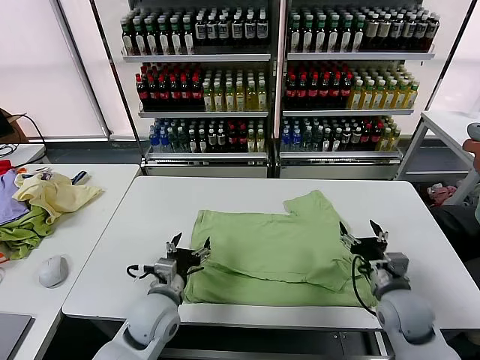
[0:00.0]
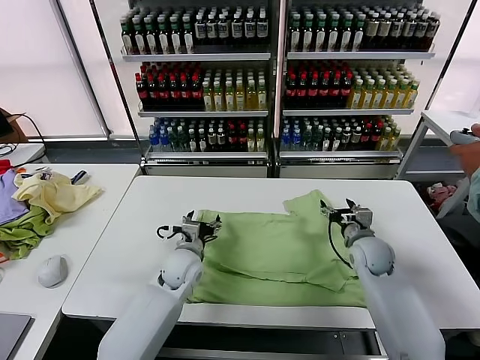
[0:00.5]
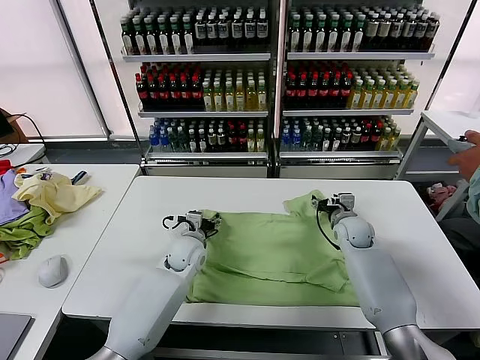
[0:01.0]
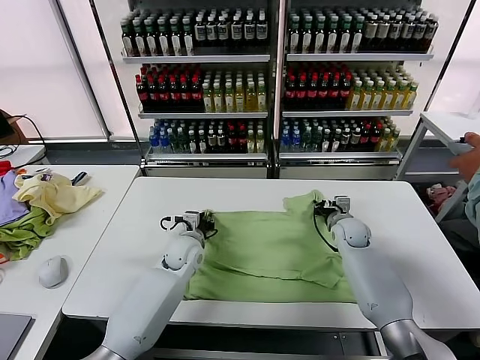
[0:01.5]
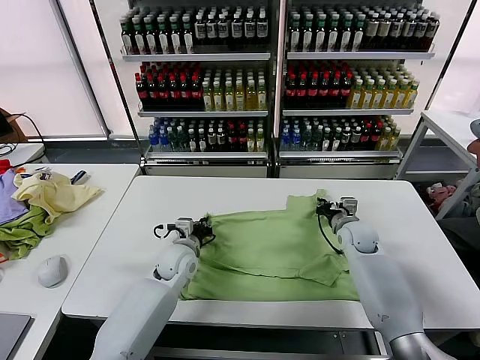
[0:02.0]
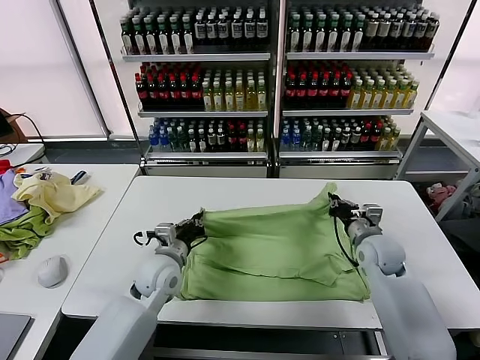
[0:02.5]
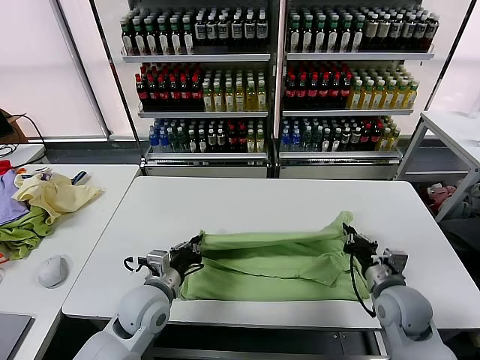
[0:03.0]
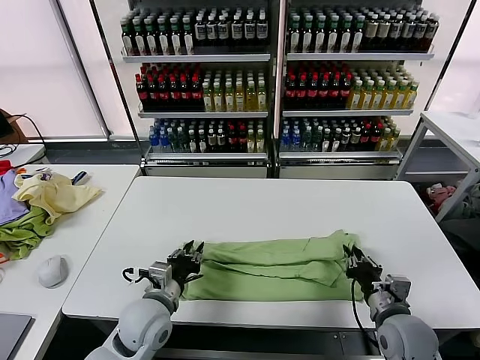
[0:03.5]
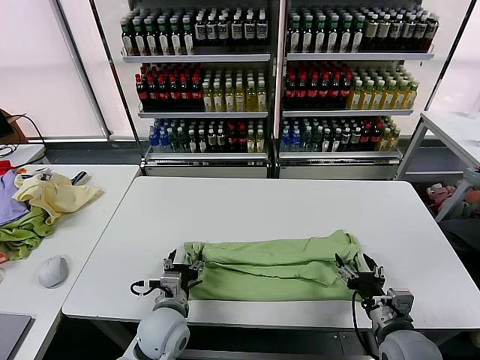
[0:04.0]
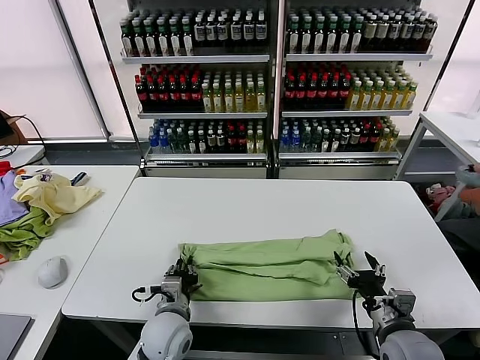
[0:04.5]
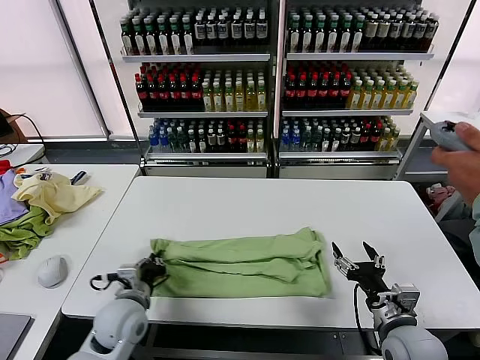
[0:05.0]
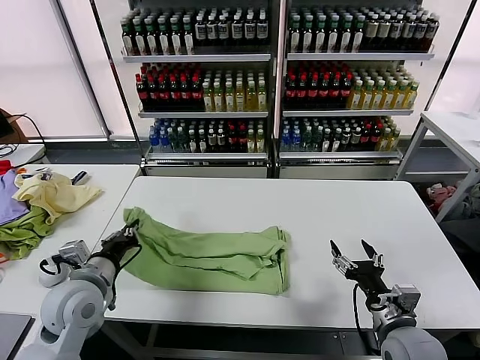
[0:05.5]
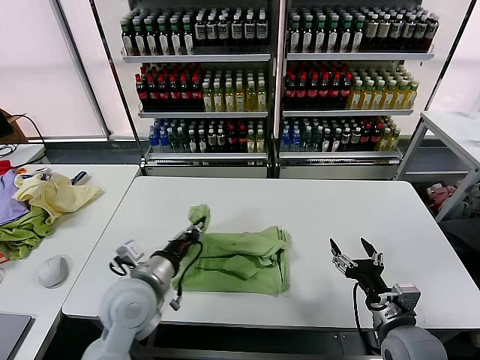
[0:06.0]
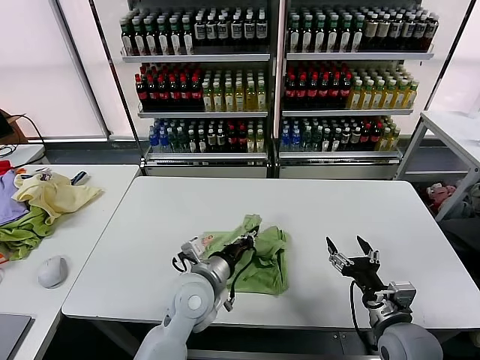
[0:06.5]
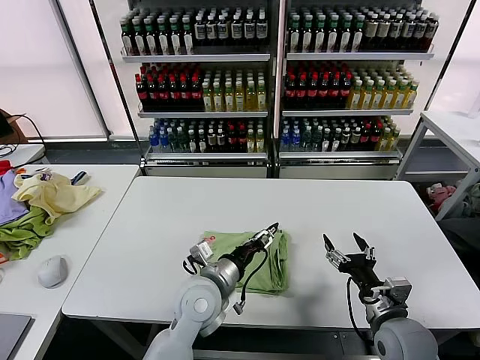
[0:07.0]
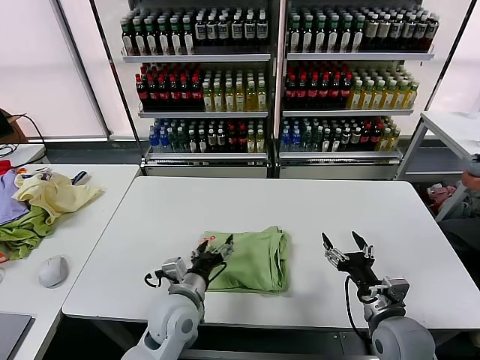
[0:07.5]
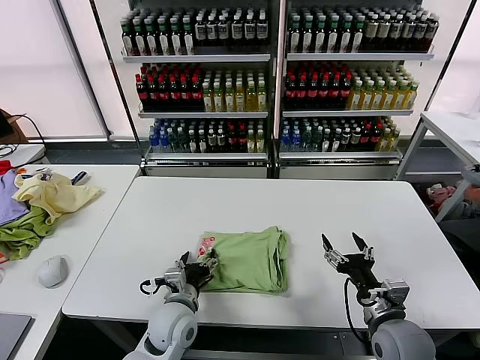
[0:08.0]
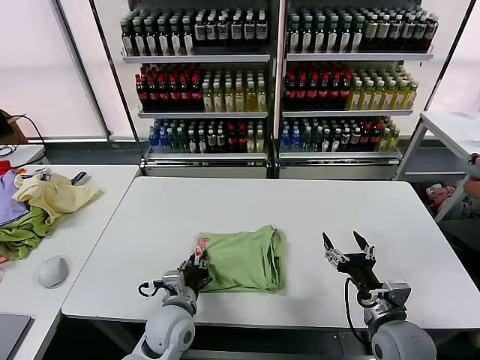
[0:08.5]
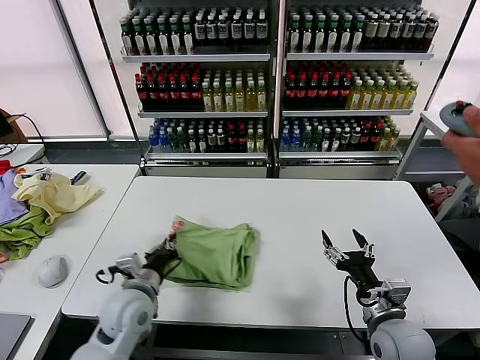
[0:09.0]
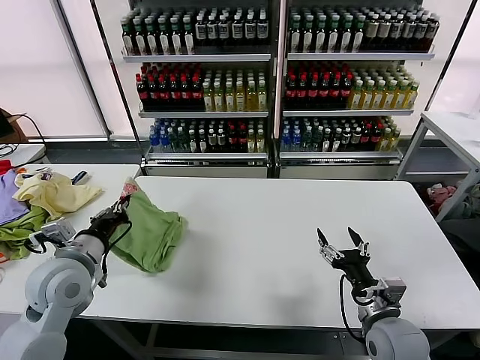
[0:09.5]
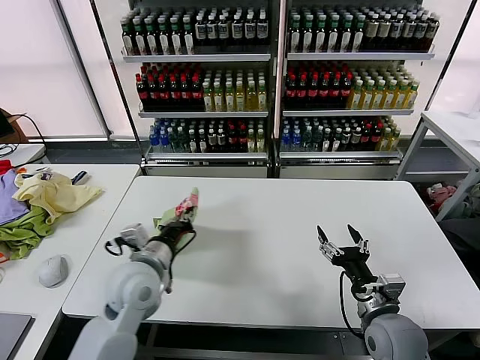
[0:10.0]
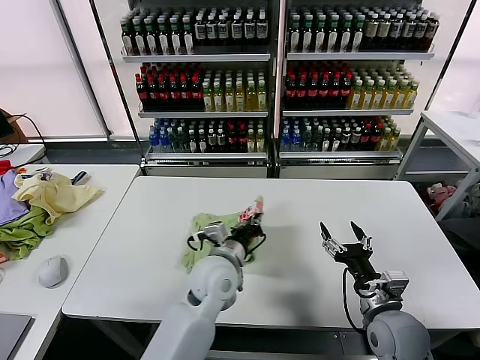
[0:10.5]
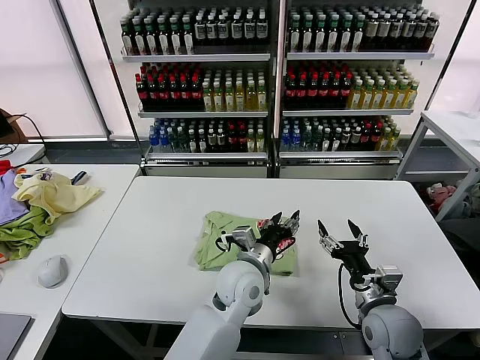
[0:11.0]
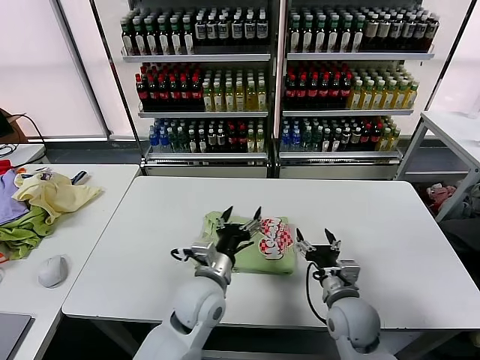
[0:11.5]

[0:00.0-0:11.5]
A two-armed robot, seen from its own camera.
Task of the whole recording: fold and organize the clothes.
Step, 0:00.0 to 0:01.5: use both grippers simultaneously to clamp the upper edge of the clothing fabric.
Step, 0:02.0 to 0:03.5: use both grippers to drag the upper edge of the fabric backward and fold it over the lower edge.
Step, 0:04.0 to 0:04.5: use the left gripper to clamp the left edge of the fabric.
Step, 0:05.0 to 0:06.5: use the left gripper to drag the left edge of the fabric to the left and folds it over the right edge.
Step, 0:07.0 to 0:10.5: Flip the folded clothes over with left gripper.
0:00.0 to 0:02.0: Both grippers travel together forward, some 15 cm. The right gripper closes; the left gripper closes.
0:02.0 to 0:04.0: The left gripper travels backward by about 15 cm, and opens up, while the right gripper heads backward, covering some 30 cm, and opens.
0:04.0 to 0:06.0: The left gripper travels upward by approximately 10 cm, goes to the left and returns, some 15 cm each way, and closes.
0:06.0 to 0:07.5: The left gripper shifts some 10 cm to the right and downward, and opens up.
0:07.5 to 0:09.5: The left gripper is displaced to the left and upward by some 20 cm, and closes.
0:09.5 to 0:11.5: The right gripper goes about 5 cm forward. Meanwhile the left gripper travels to the right by about 25 cm, and opens.

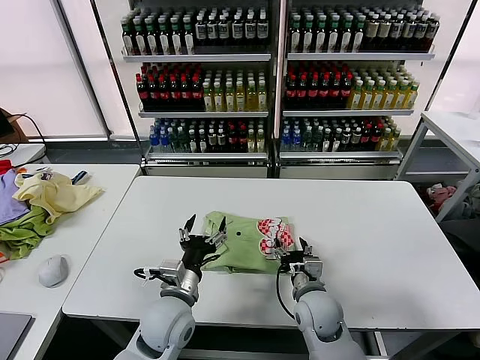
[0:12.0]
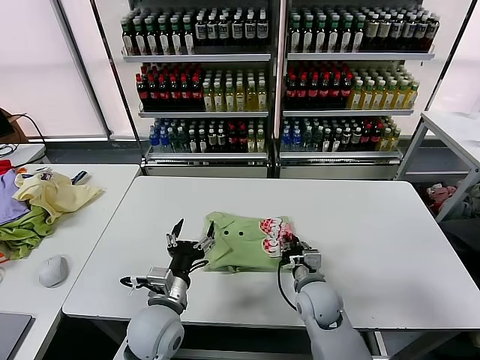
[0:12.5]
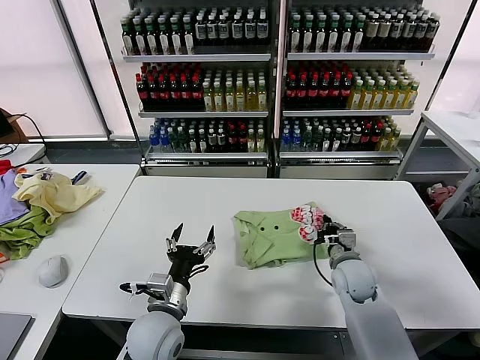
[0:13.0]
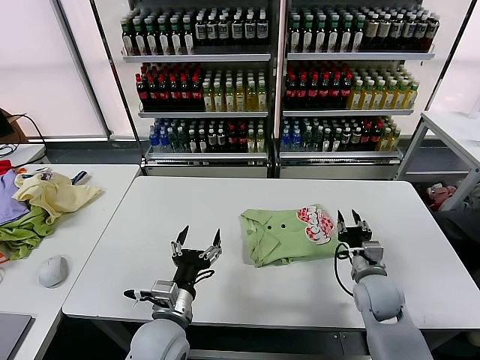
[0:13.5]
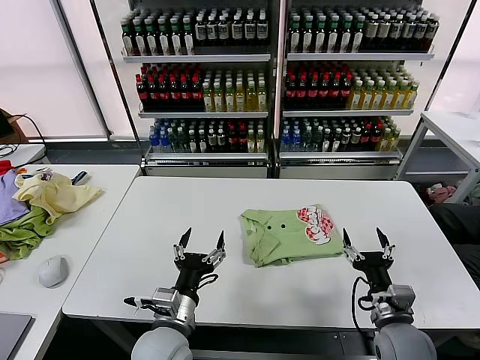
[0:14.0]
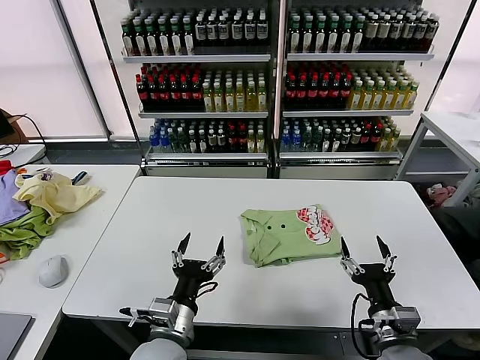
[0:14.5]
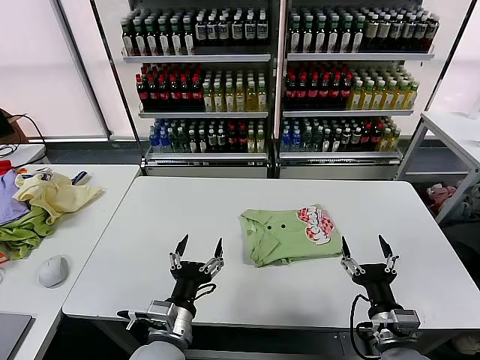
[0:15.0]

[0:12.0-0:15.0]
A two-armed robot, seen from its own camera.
Task of the whole recording: fold and organize the clothes.
0:12.0 to 0:13.5: The right gripper moves to the right, approximately 15 cm, and closes.
0:13.5 to 0:15.0: The right gripper goes roughly 15 cm backward, and opens.

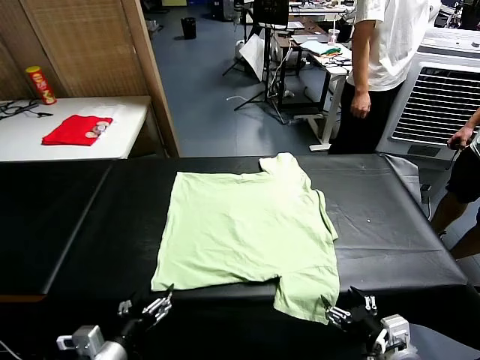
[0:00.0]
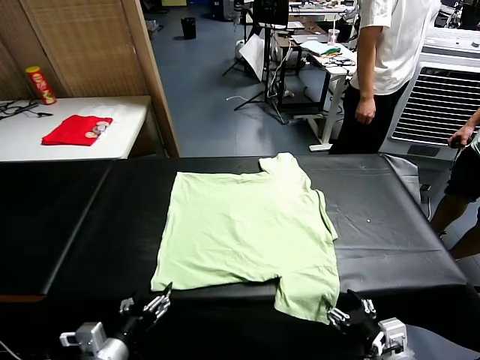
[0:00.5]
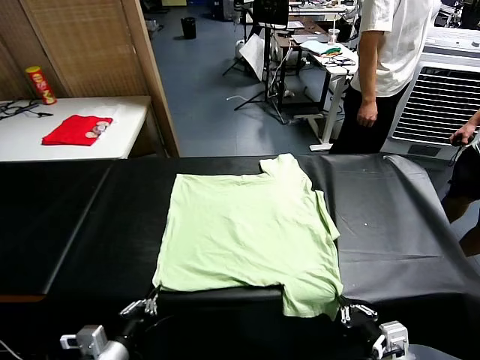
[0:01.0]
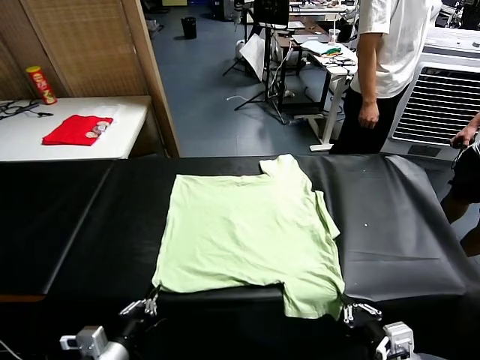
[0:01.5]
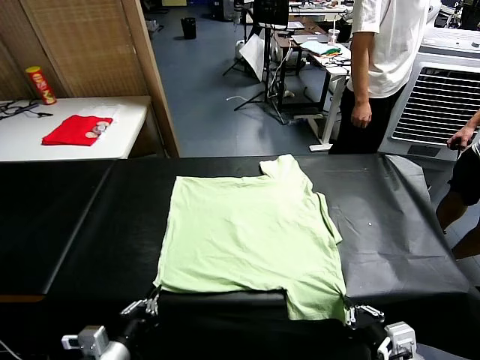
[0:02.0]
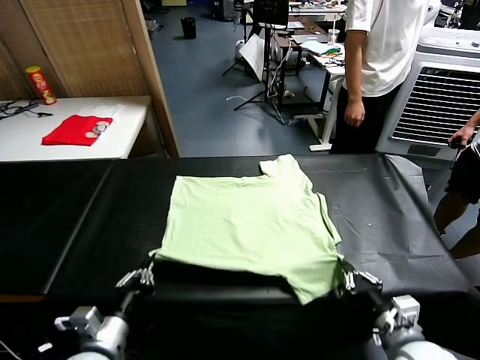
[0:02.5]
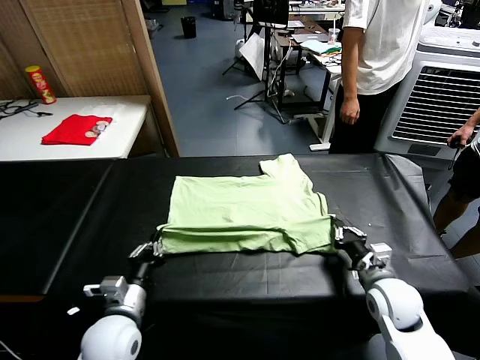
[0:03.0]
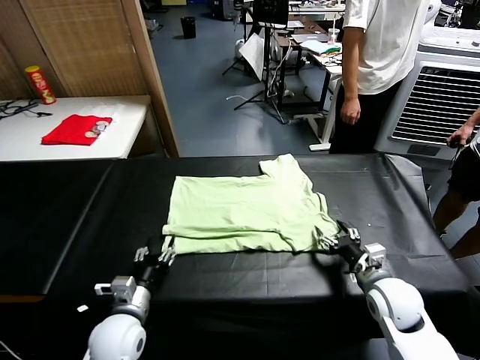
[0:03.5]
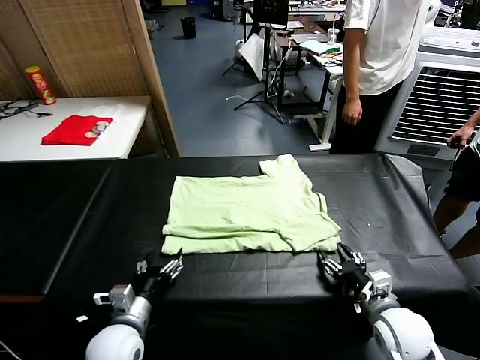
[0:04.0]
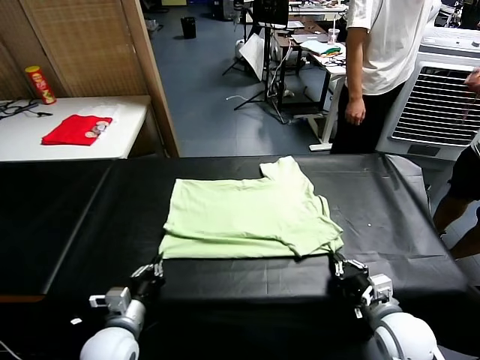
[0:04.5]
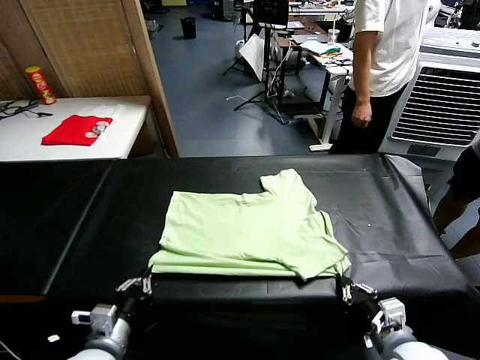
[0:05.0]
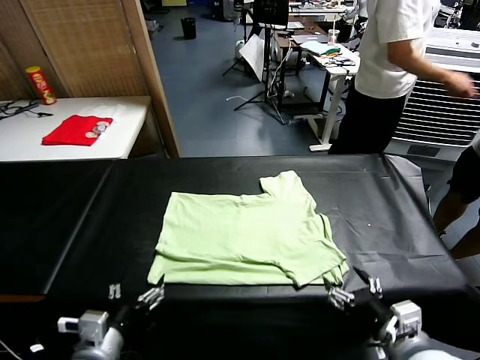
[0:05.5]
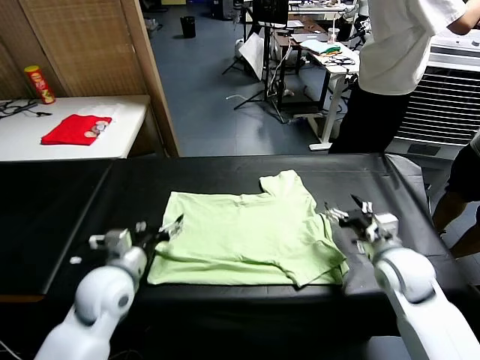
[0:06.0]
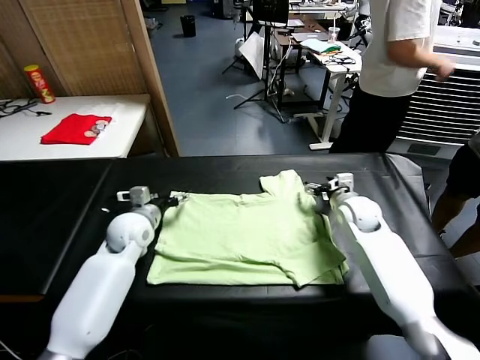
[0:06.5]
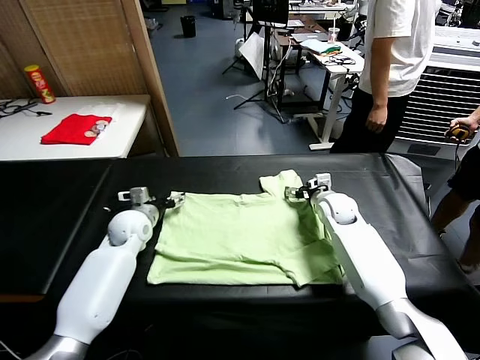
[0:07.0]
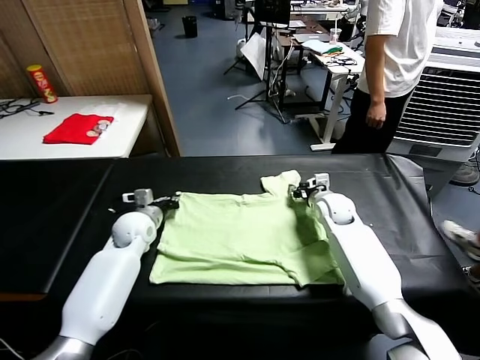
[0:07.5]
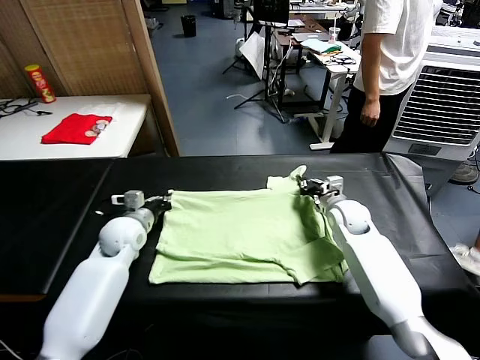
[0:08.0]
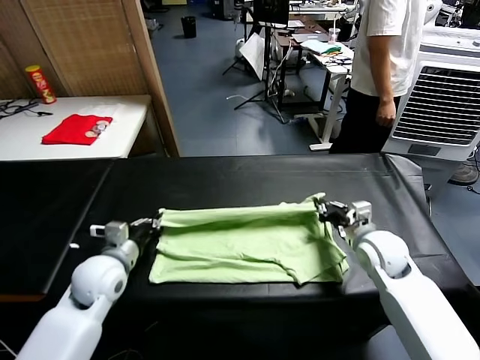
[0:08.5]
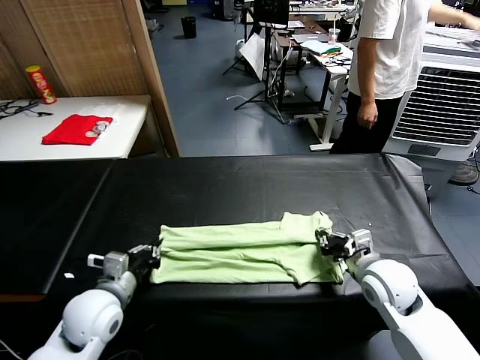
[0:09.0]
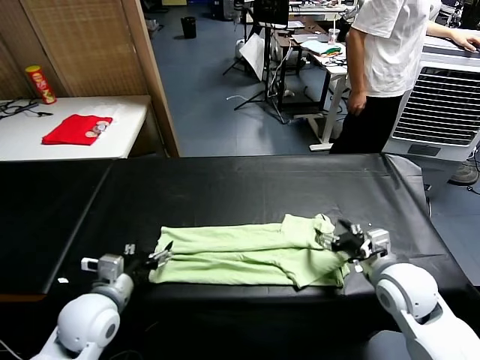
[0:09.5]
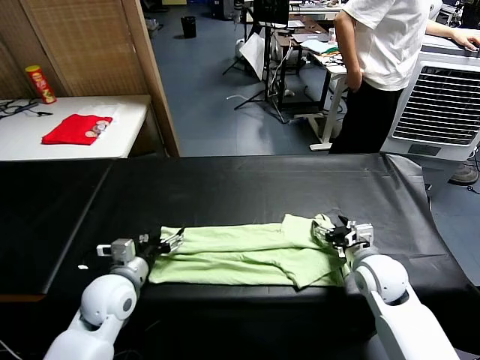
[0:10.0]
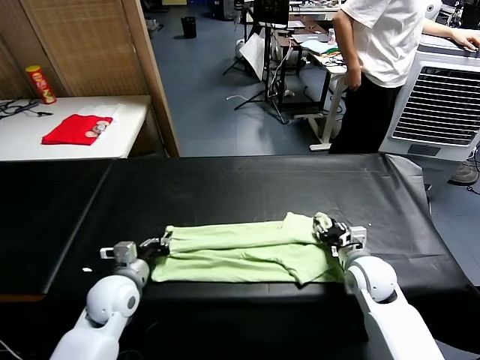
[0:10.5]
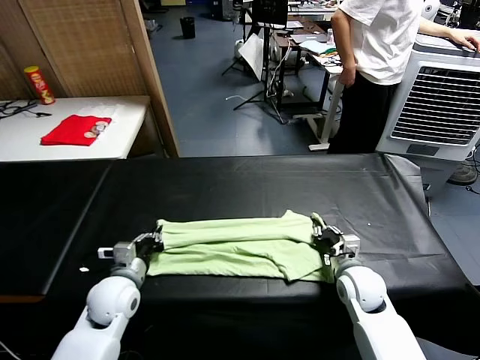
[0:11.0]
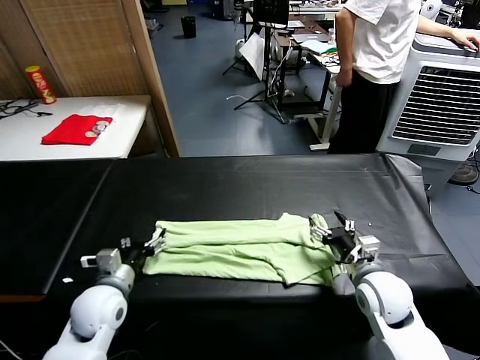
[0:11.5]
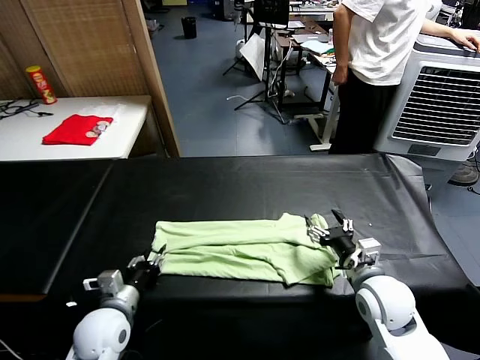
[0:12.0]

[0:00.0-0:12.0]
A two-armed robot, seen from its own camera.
Task of the whole recording: fold and organize the clothes.
Step, 0:00.0 to 0:01.0: use both grippers simultaneously to clamp the lower edge of the clothing fabric.
Step, 0:01.5 to 0:03.0: use both grippers to drag the lower edge of the fabric forward and fold it over the upper edge.
Step, 0:03.5 to 0:05.0: Drag the clothes downward with both gripper.
Step, 0:05.5 to 0:07.5: use both grippers simultaneously to clamp the upper edge of the clothing fabric.
Step, 0:08.0 to 0:09.0: use both grippers to drag the upper edge of the fabric backward and fold it over the lower edge.
0:02.0 to 0:04.0: The left gripper moves forward, roughly 10 cm, and opens its fingers. Meanwhile the right gripper goes about 10 cm forward and downward, and opens and closes again.
0:04.0 to 0:06.0: The left gripper moves forward and upward, some 15 cm, and closes, then reopens; the right gripper heads forward, covering roughly 15 cm, and opens.
0:06.0 to 0:08.0: The right gripper moves forward, some 5 cm, and closes. Meanwhile the left gripper moves forward, some 10 cm, and closes up.
0:08.0 to 0:10.0: Both grippers travel together backward, about 10 cm. The right gripper opens up. The left gripper opens.
0:10.0 to 0:12.0: Both grippers move backward, about 5 cm. The right gripper closes, then opens again; the left gripper closes up.
